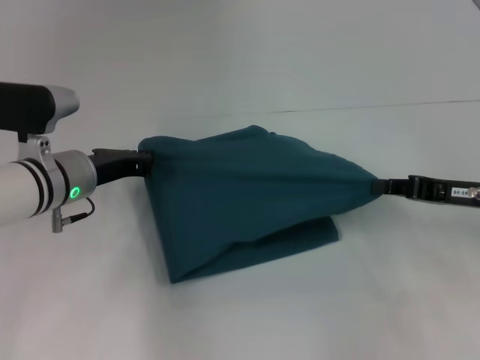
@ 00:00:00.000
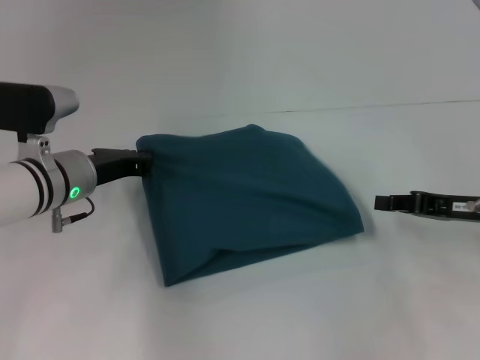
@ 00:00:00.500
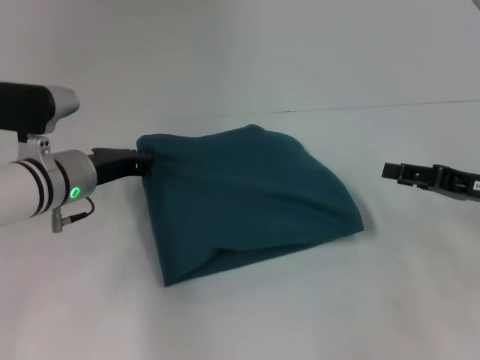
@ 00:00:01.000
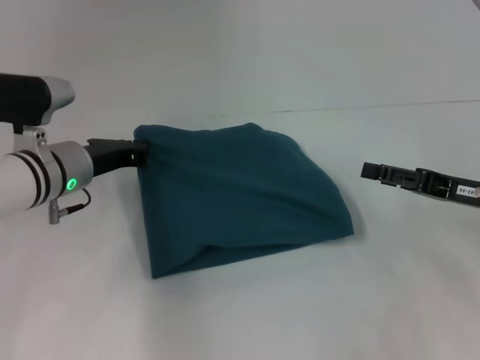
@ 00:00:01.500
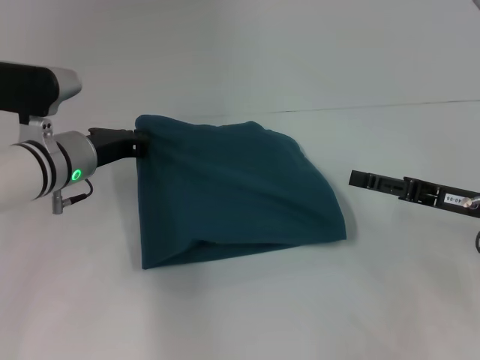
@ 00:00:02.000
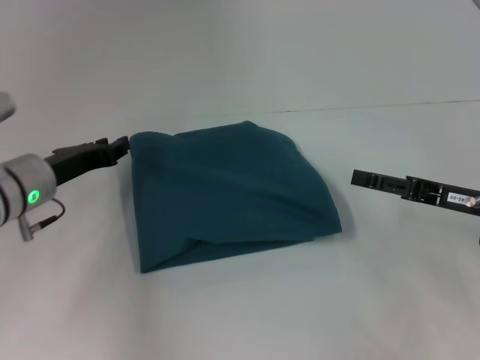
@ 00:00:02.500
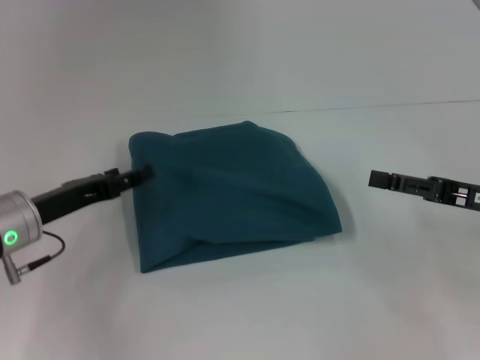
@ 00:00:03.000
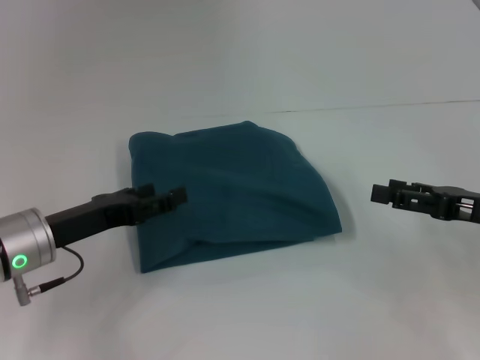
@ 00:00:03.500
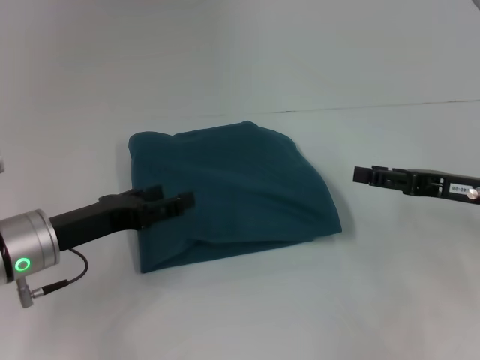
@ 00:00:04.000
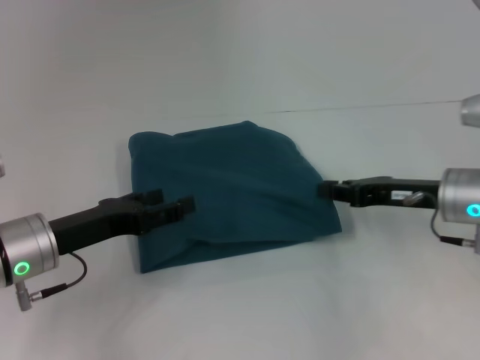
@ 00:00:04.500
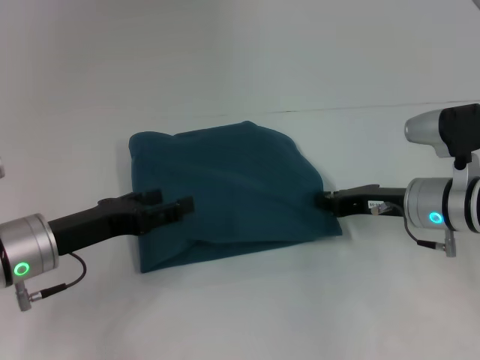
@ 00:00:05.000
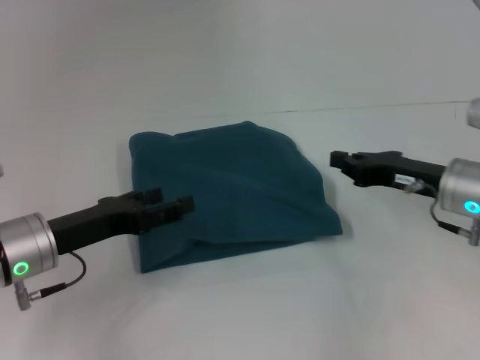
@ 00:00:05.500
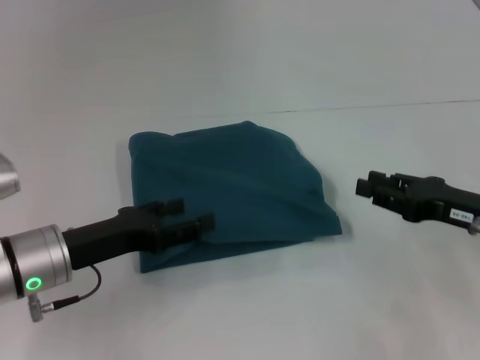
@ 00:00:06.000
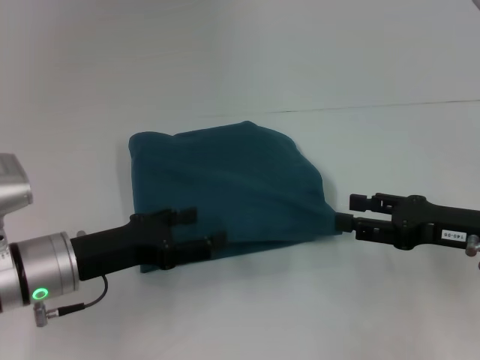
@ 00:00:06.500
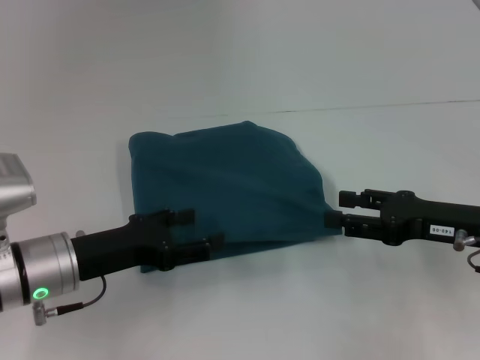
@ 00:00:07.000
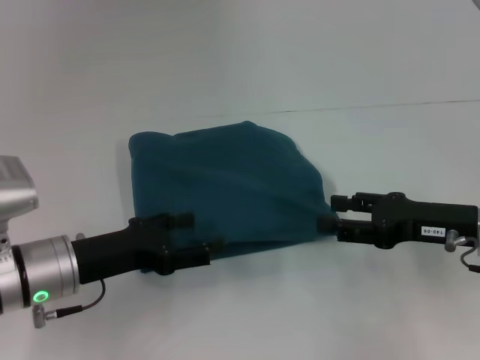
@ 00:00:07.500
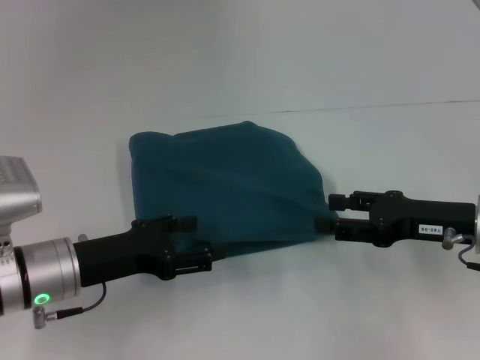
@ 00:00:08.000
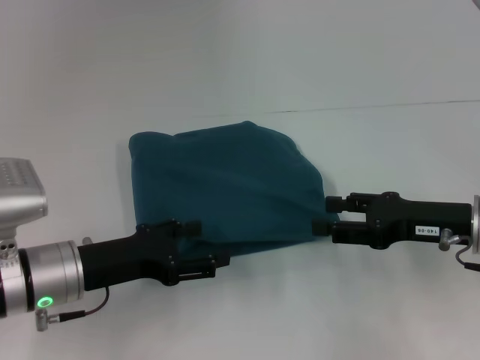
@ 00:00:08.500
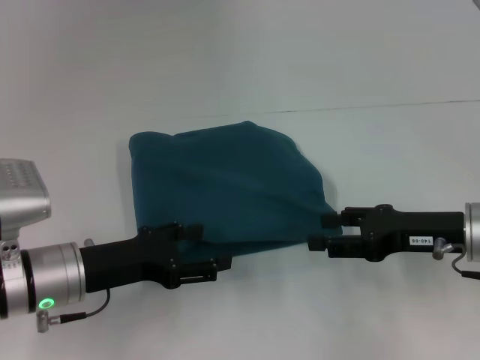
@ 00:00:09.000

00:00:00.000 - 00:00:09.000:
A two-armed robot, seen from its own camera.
00:00:00.000 - 00:00:02.000: The right gripper opens its fingers.
00:00:02.000 - 00:00:04.500: The right gripper changes place by about 5 cm, and closes. The left gripper heads backward, covering about 10 cm, and opens up.
00:00:04.500 - 00:00:07.000: The right gripper heads backward, covering approximately 5 cm, and opens up.
00:00:07.000 - 00:00:09.000: The grippers move only a little.
